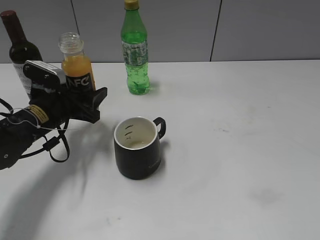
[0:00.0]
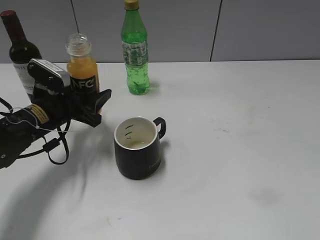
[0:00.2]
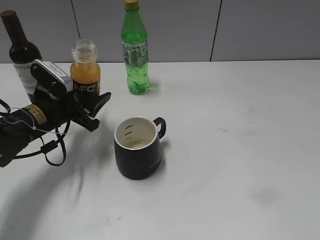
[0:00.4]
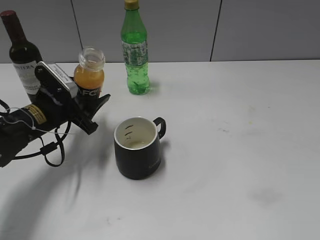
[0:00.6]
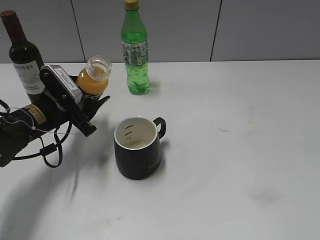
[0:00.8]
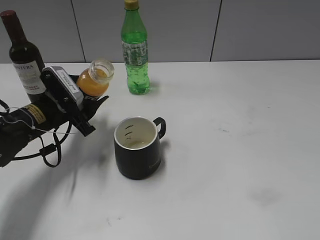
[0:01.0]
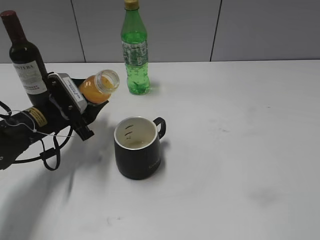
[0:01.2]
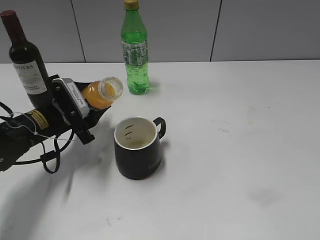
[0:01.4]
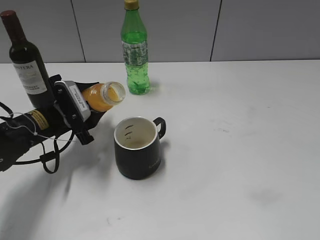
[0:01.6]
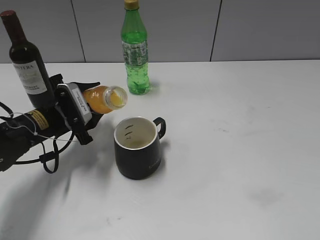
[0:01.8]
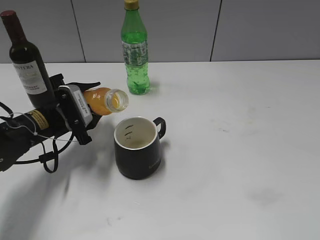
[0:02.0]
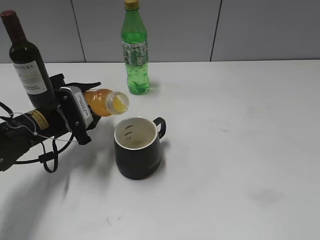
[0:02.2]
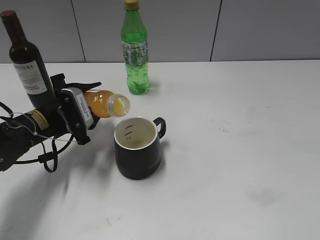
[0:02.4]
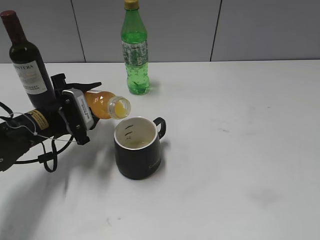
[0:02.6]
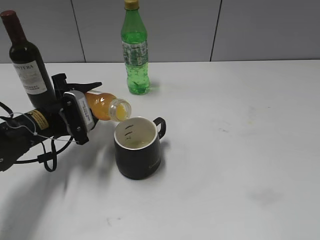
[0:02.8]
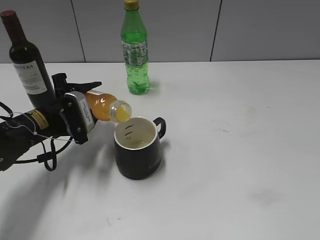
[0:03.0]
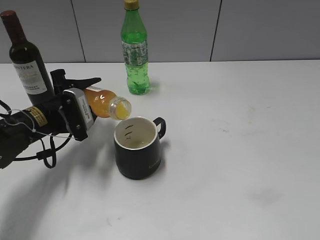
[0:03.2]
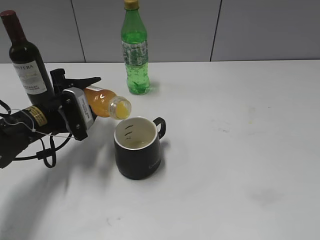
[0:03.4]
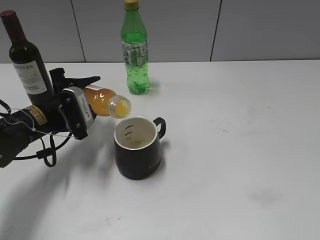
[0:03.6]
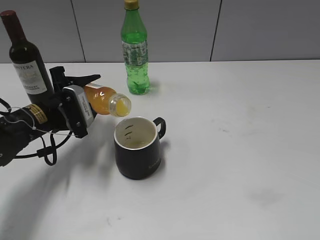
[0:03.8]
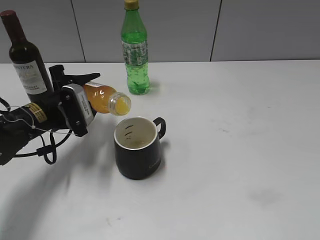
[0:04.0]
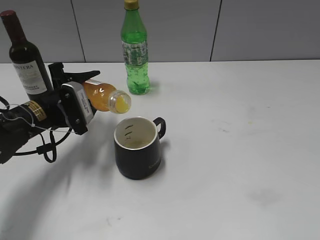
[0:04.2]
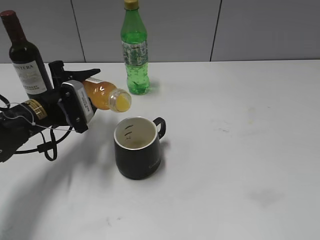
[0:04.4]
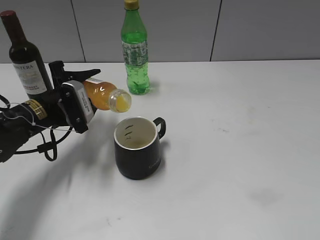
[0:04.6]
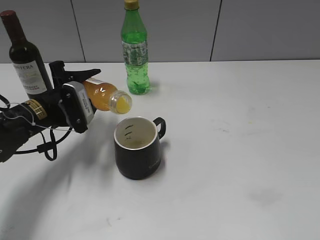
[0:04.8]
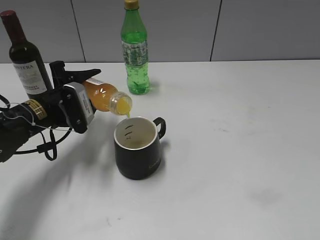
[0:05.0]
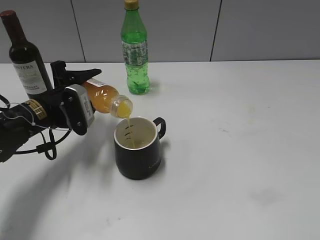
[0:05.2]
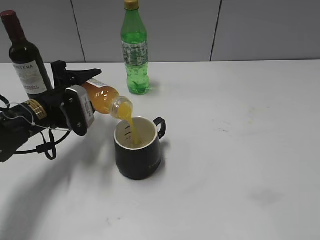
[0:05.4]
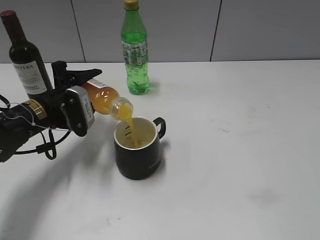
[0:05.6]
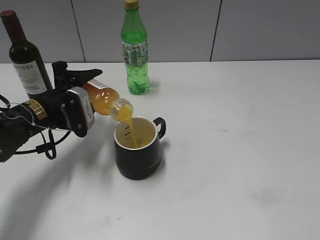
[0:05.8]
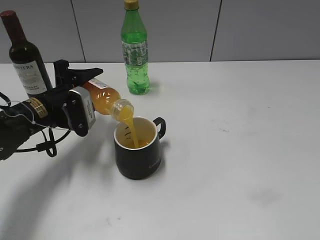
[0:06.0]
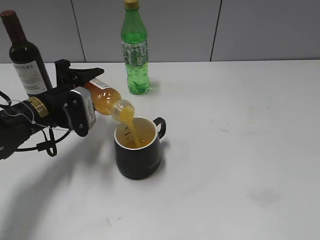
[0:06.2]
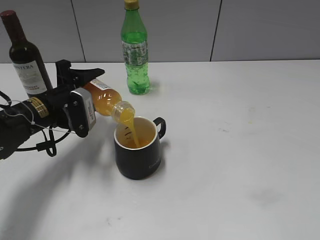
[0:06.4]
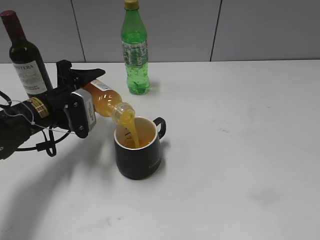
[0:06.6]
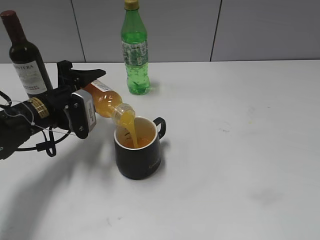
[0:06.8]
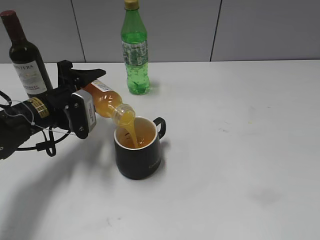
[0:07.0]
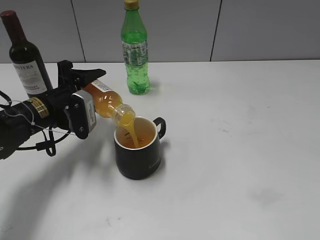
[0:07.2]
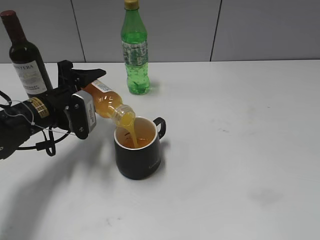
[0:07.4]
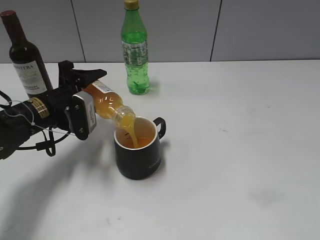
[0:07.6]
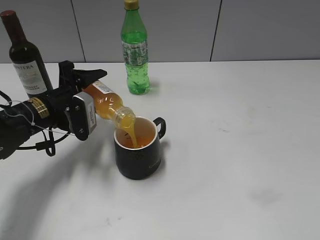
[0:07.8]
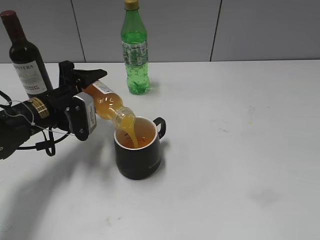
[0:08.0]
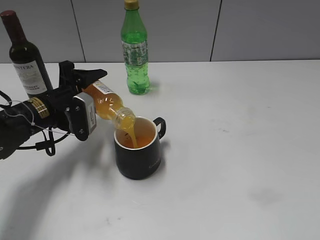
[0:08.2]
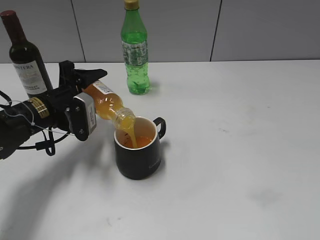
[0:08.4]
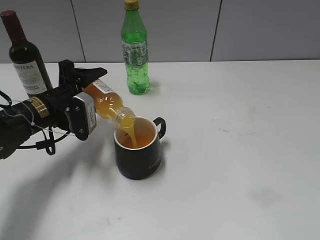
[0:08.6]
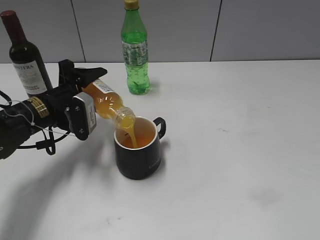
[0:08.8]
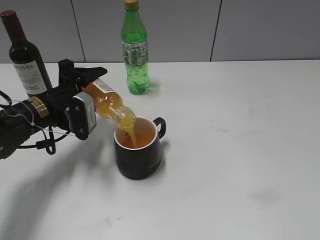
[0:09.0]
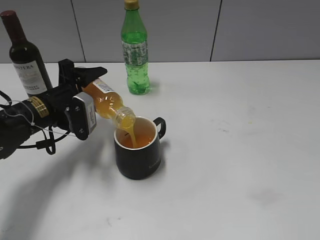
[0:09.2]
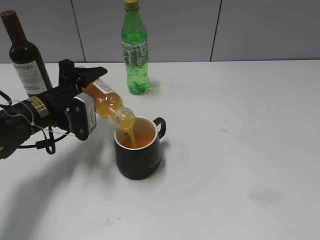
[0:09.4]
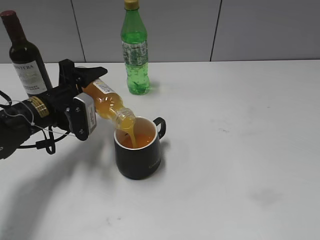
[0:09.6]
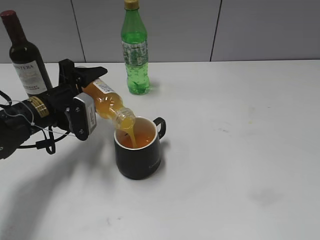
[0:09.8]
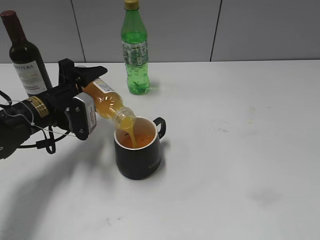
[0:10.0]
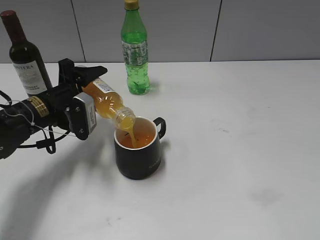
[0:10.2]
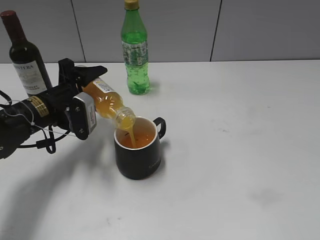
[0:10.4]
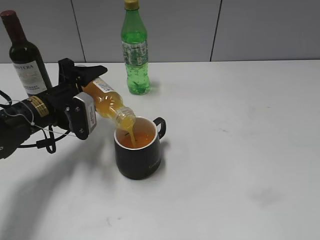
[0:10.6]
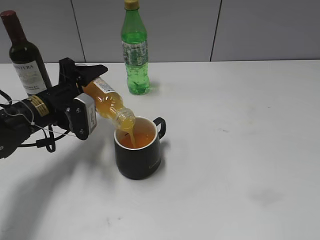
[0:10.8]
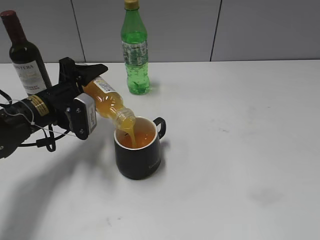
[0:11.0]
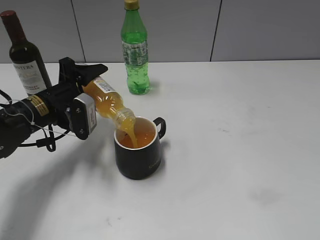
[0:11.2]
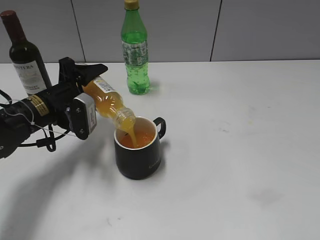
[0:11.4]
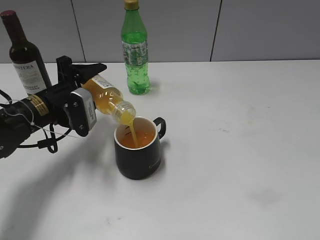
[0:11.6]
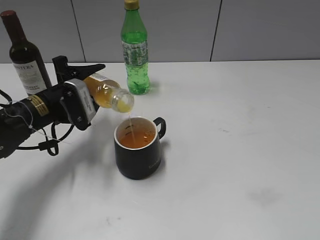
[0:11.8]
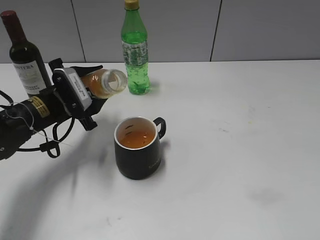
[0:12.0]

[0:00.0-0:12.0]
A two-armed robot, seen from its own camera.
Step, 0:00.0 to 0:11.8: Pour the orange juice from bottle to cup with left gripper.
0:01.6 to 0:03.0: The grippers move only a little.
0:03.0 to 0:07.6: The grippers move only a little.
0:07.6 to 0:10.4: The two grippers keep their place.

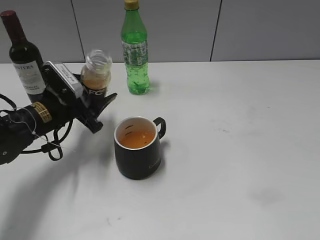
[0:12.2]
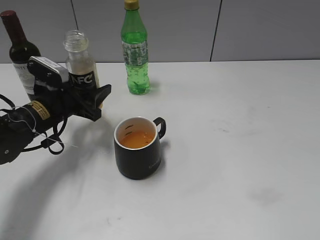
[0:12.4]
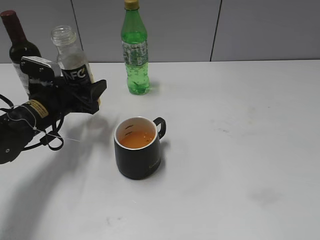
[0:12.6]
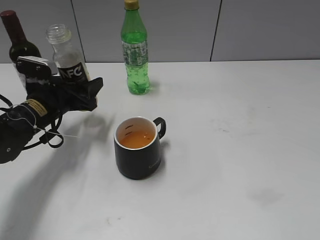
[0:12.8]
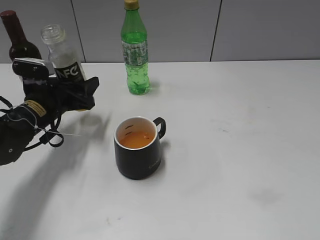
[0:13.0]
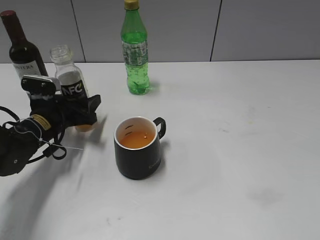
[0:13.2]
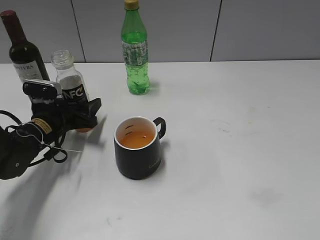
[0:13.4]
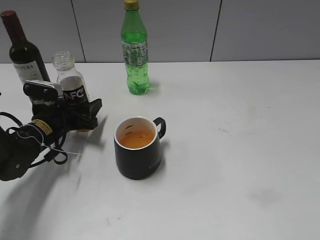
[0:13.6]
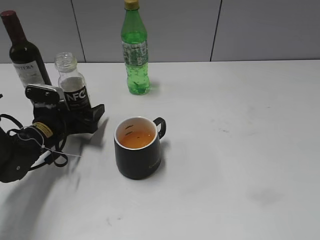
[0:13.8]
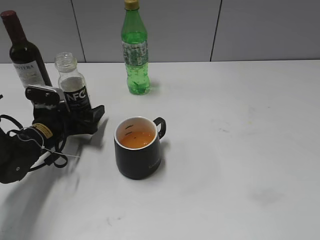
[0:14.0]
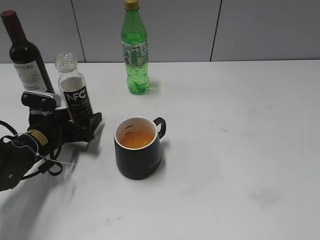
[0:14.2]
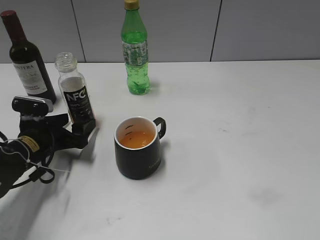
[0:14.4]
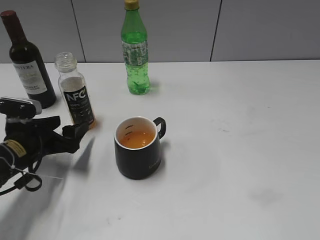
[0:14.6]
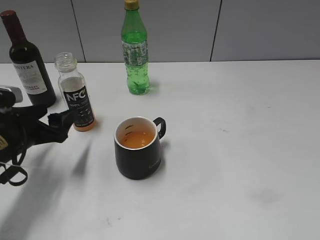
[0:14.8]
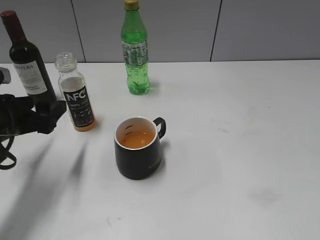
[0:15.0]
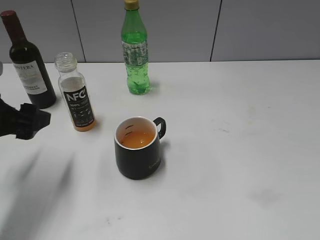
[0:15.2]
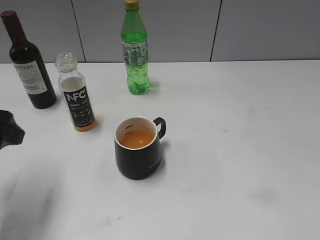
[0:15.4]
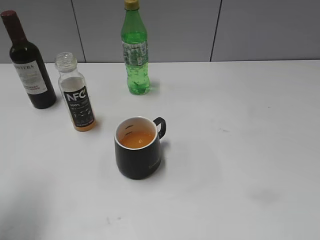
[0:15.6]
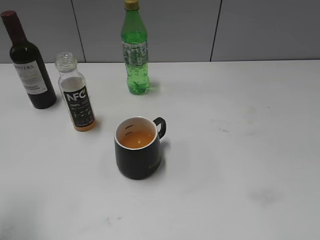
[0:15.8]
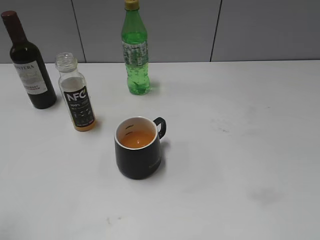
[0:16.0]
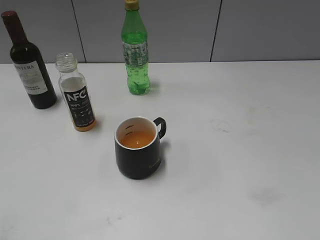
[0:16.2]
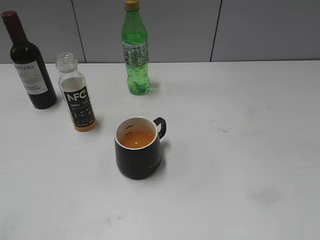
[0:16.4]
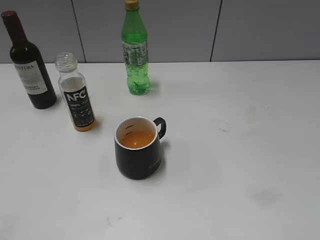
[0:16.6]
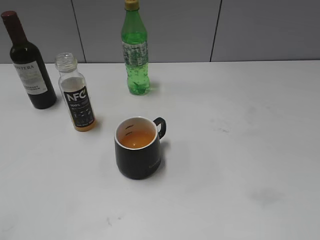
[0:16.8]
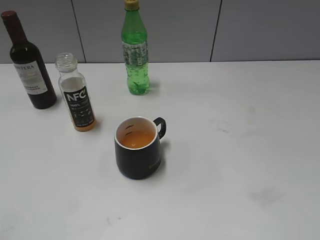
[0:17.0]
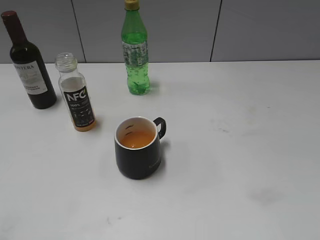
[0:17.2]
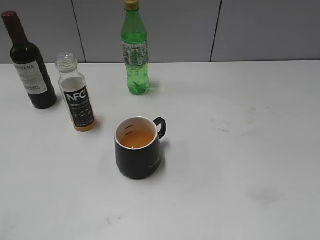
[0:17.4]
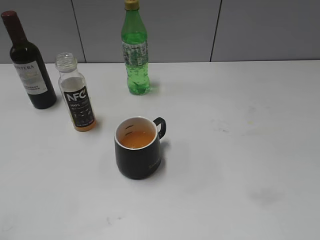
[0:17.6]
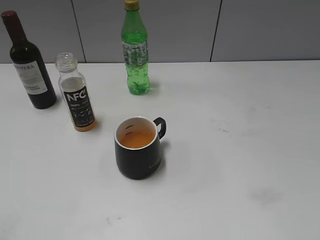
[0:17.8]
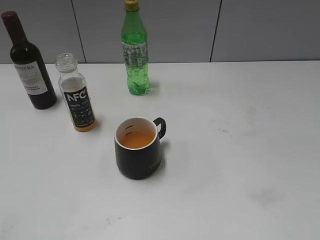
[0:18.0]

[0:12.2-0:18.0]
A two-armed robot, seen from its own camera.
Step, 0:12.2 to 0:14.0: Place the orange juice bottle on the table with left gripper.
0:12.2 to 0:13.6: The left gripper is displaced downward by about 5 cm.
0:13.6 to 0:15.0: The left gripper heads upward and backward, covering approximately 10 cm, and opens its fingers.
0:15.0 to 0:16.6: The left gripper travels backward and upward by about 30 cm.
